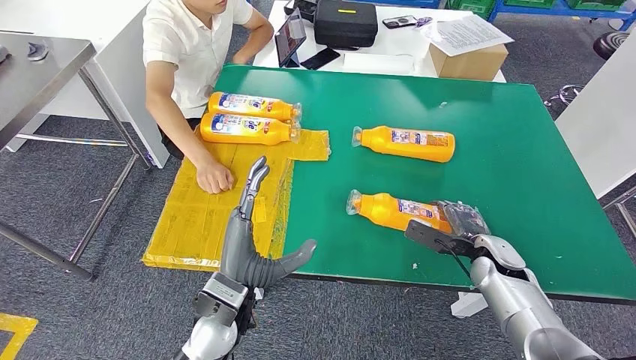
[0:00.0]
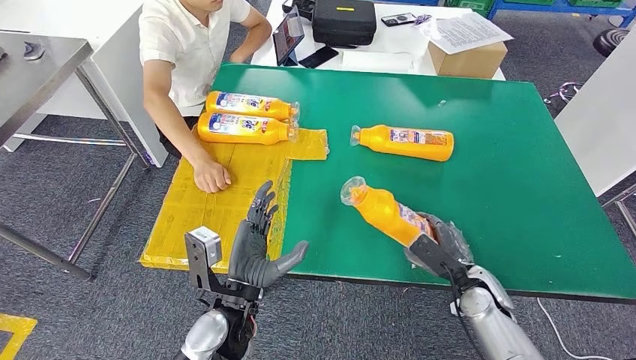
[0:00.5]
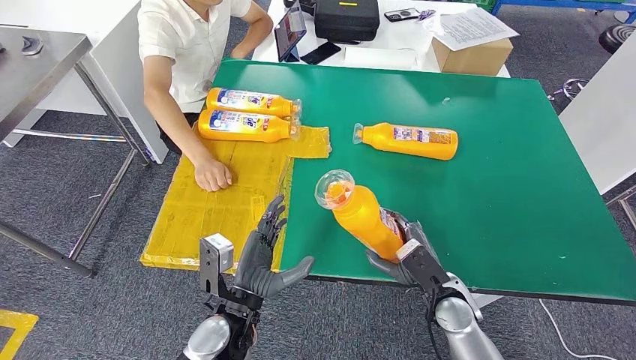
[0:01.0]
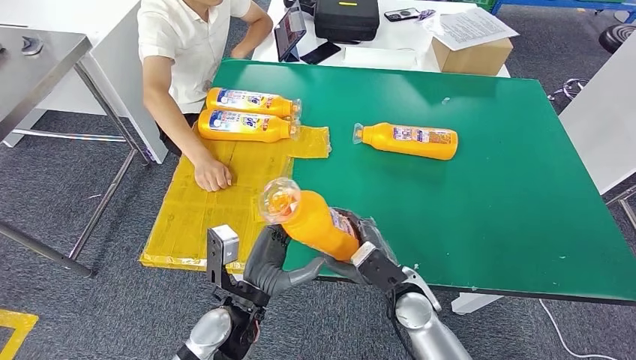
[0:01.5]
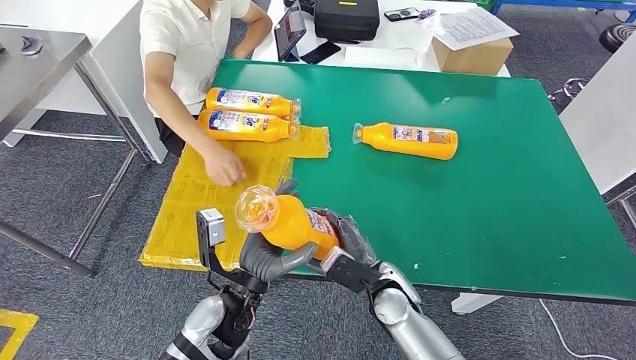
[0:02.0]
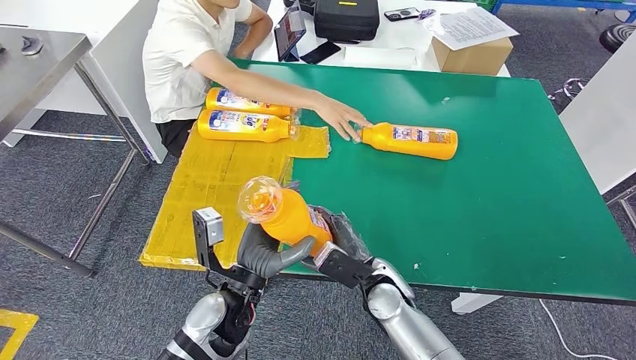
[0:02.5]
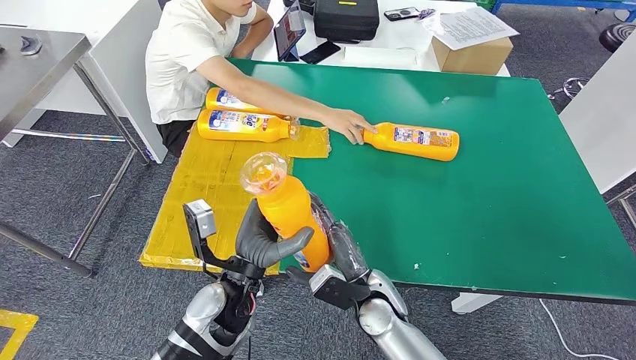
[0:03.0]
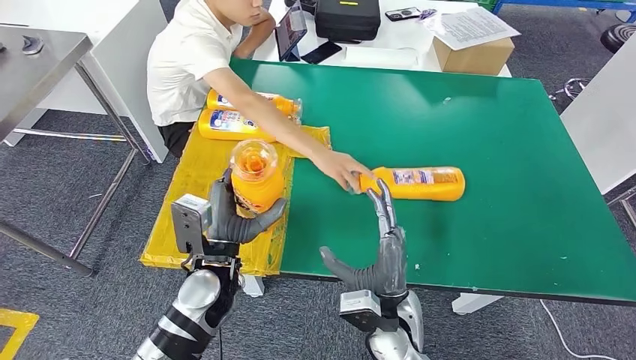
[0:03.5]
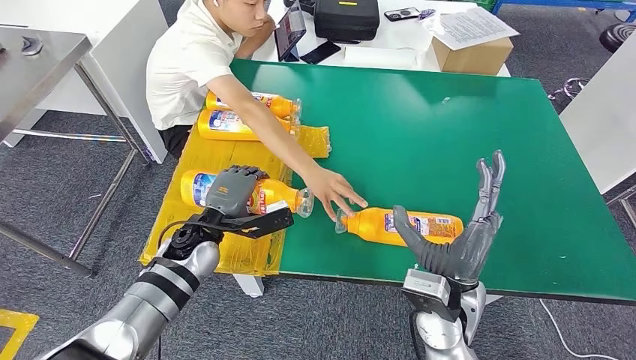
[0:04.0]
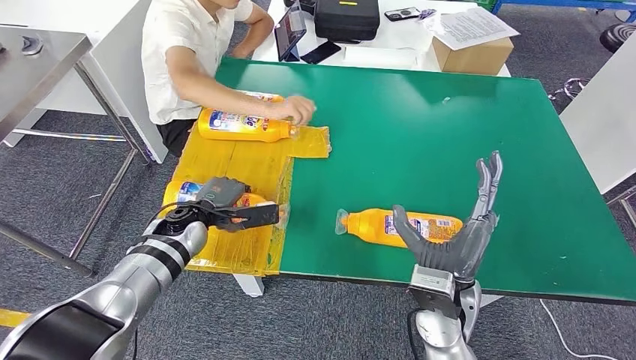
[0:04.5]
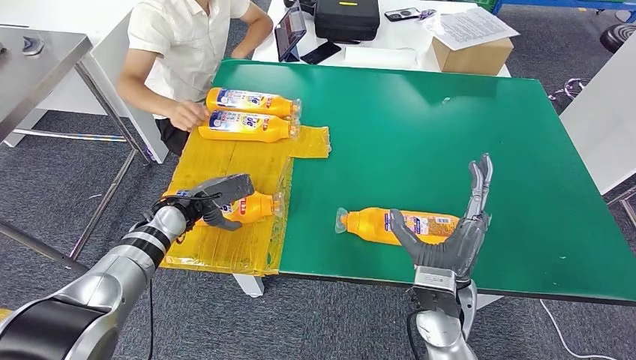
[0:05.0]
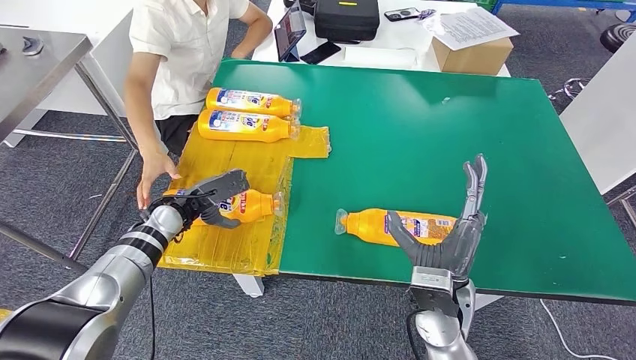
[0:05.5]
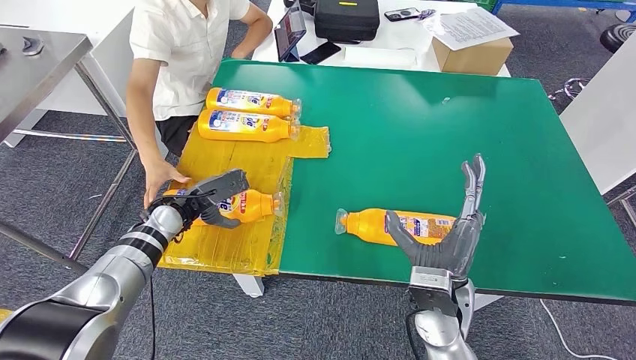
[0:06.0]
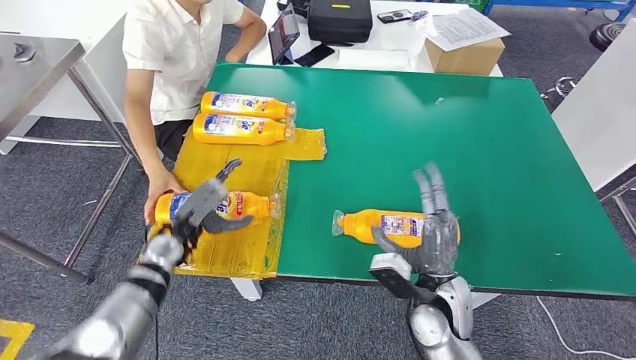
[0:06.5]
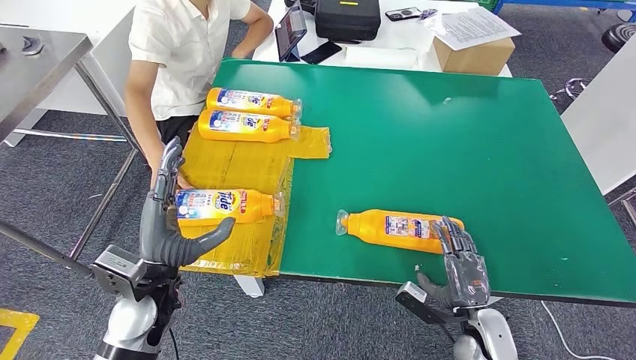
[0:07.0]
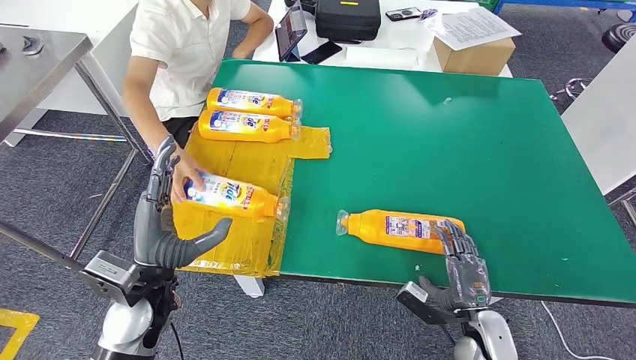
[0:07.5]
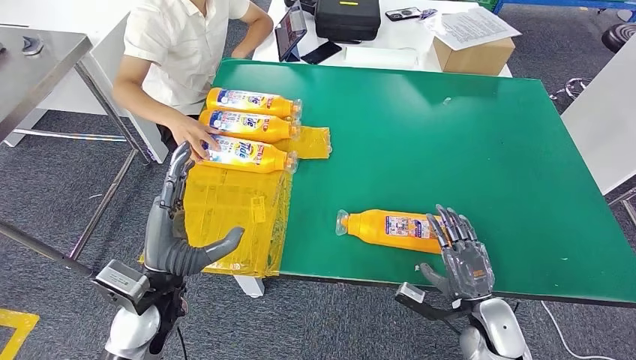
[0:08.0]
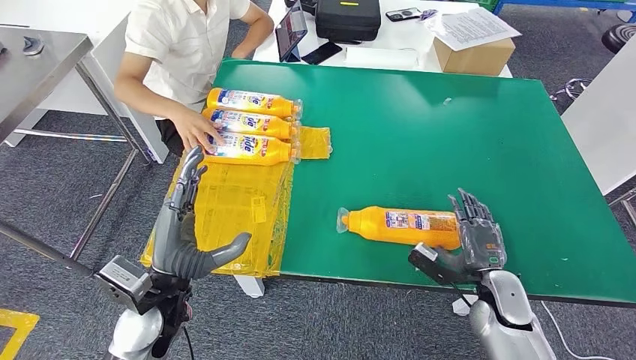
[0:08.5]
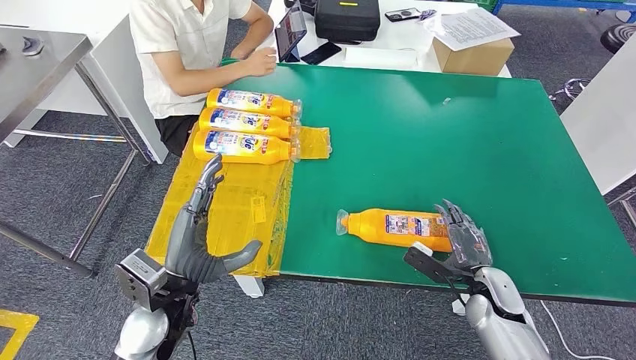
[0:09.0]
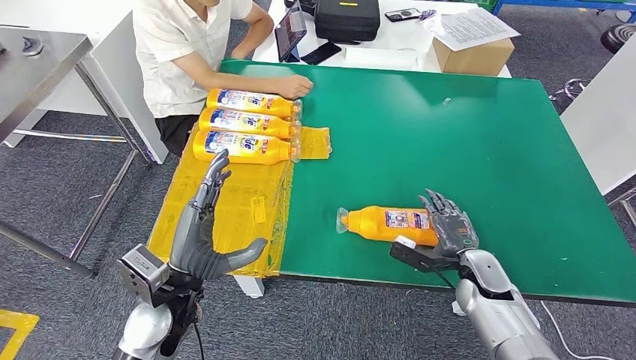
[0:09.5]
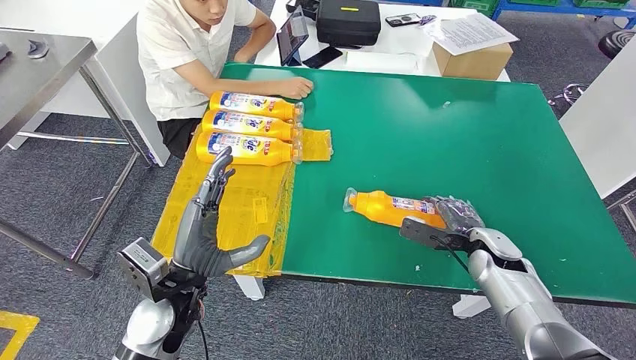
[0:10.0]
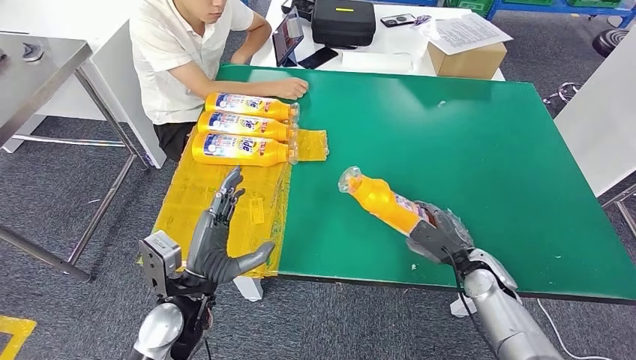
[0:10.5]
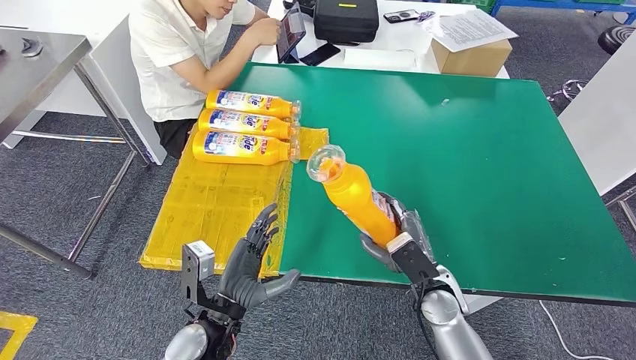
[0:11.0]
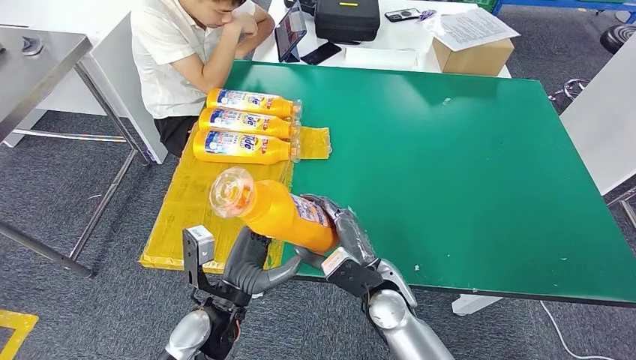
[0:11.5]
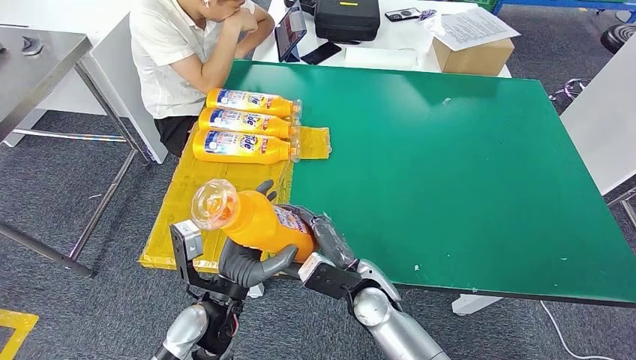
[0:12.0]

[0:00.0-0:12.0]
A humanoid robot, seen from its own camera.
Step, 0:01.5 to 0:04.0: Flip the bottle to face forward.
0:06.0 to 0:08.0: The right hand moves to the right and downward, some 15 cm; the left hand shifts roughly 15 cm backward.

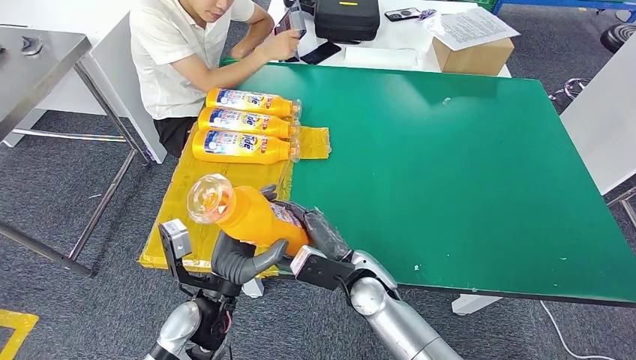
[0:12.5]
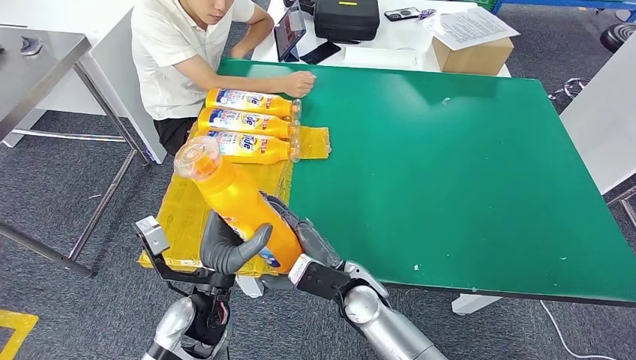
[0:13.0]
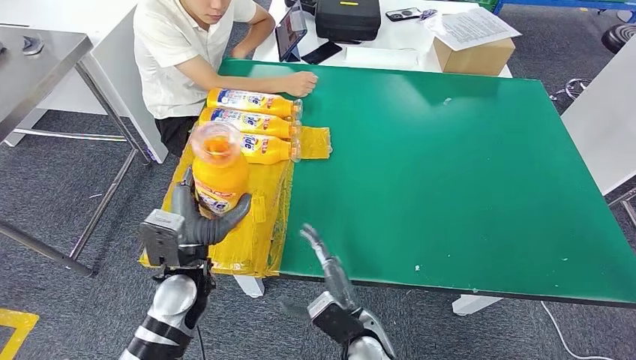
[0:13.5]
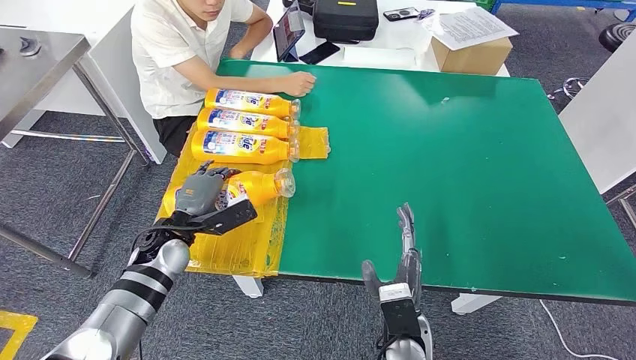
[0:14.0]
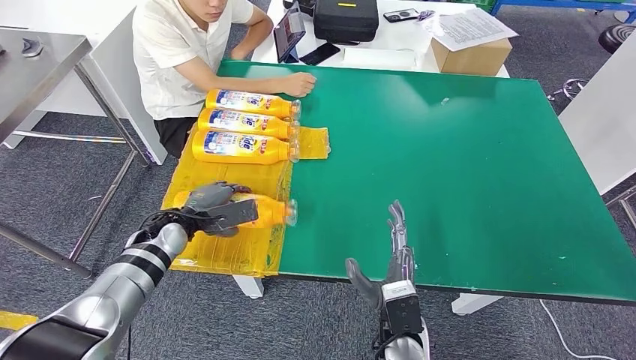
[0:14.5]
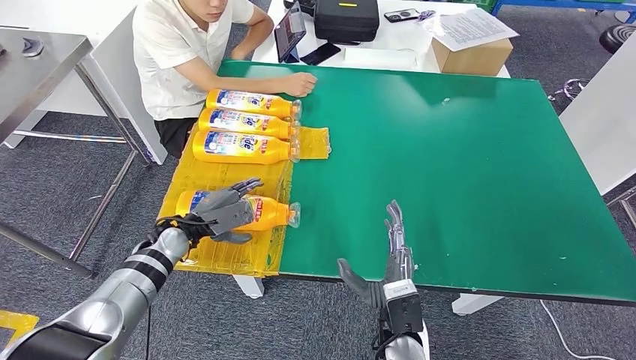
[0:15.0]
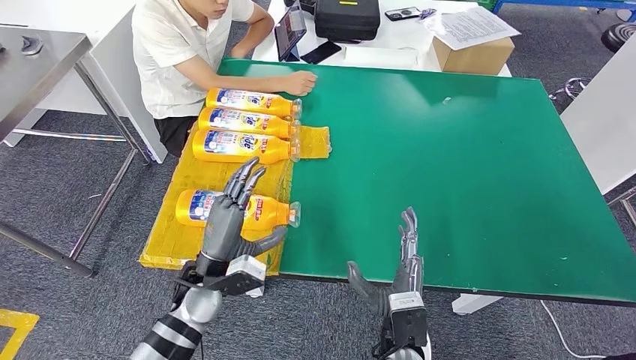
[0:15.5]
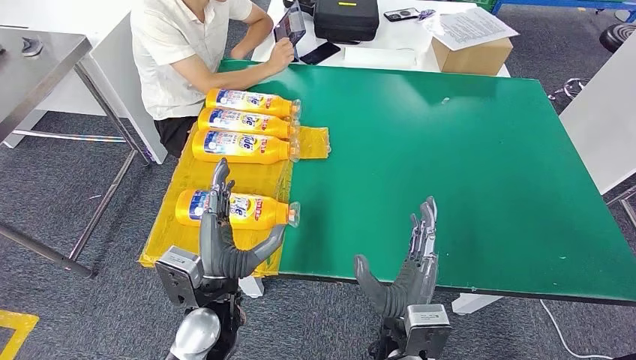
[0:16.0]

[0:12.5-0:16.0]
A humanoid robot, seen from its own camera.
Step, 0:13.0 to 0:16.0: Flip the bottle to face forward.
0:12.5 to 0:14.5: The left hand shifts about 20 cm forward and to the left. The right hand is displaced backward and to the right by some 10 cm.
0:14.5 to 0:16.0: The right hand heads upward, covering some 5 cm, while the left hand goes about 20 cm backward and to the right.
